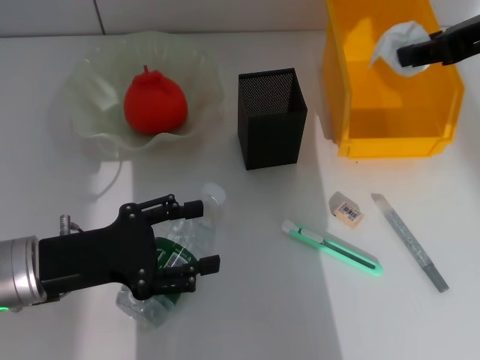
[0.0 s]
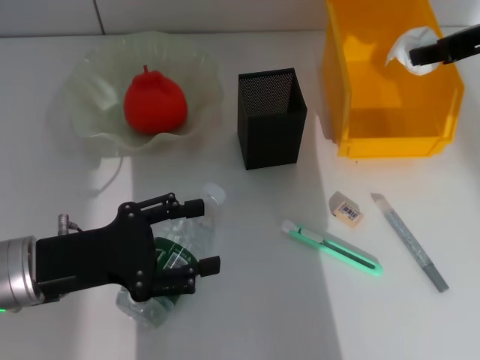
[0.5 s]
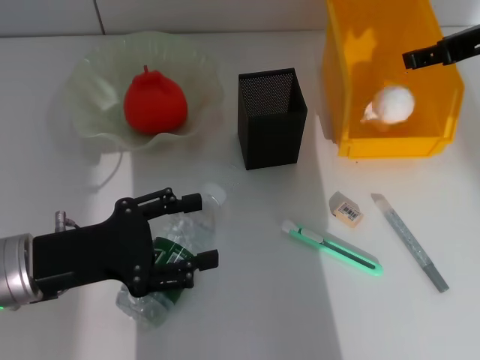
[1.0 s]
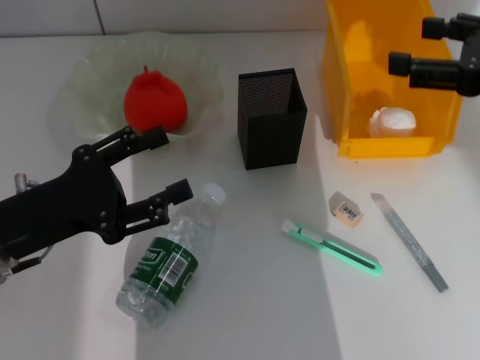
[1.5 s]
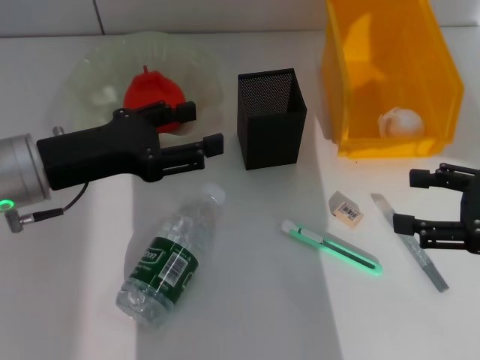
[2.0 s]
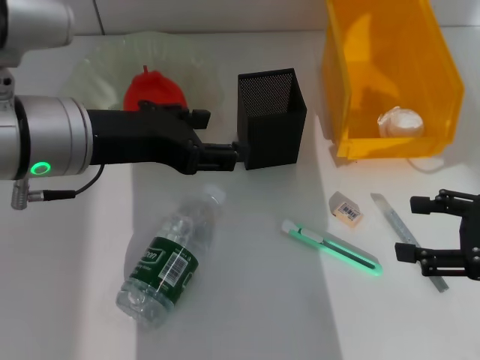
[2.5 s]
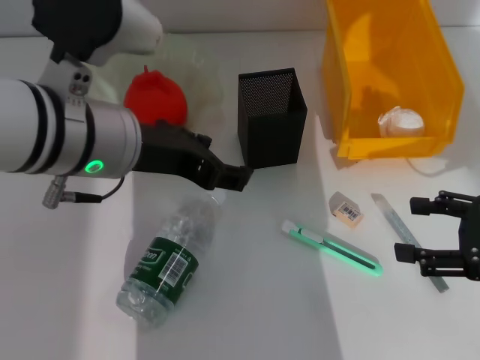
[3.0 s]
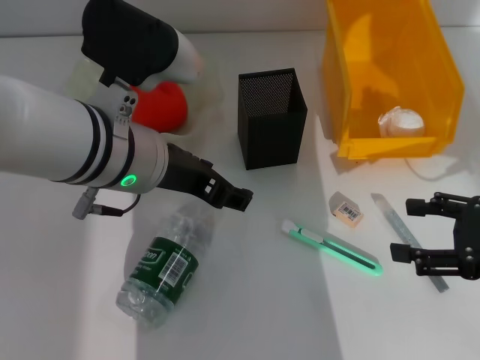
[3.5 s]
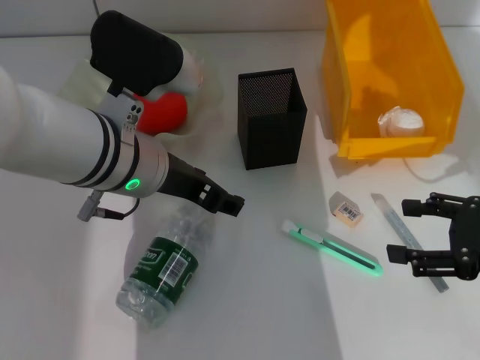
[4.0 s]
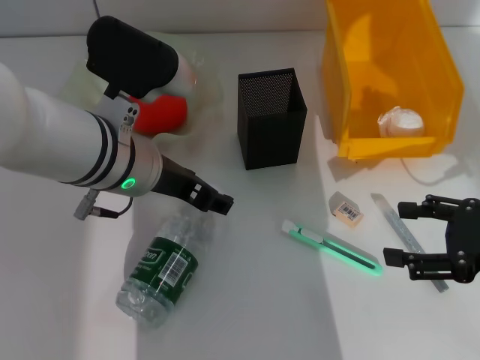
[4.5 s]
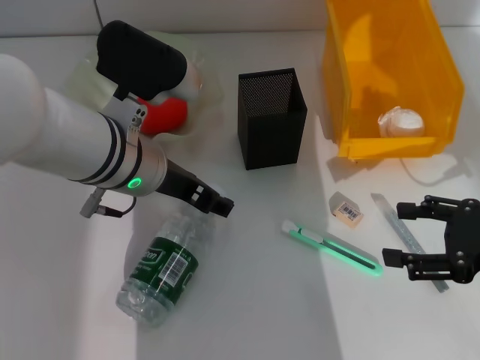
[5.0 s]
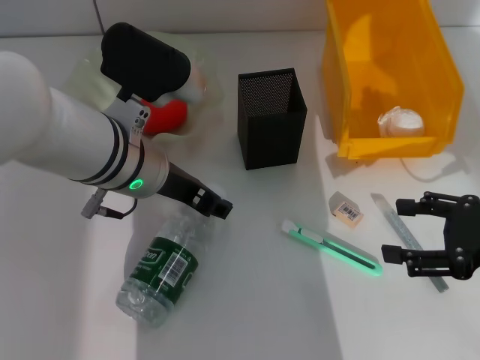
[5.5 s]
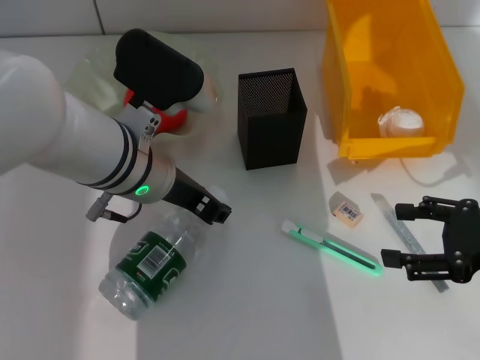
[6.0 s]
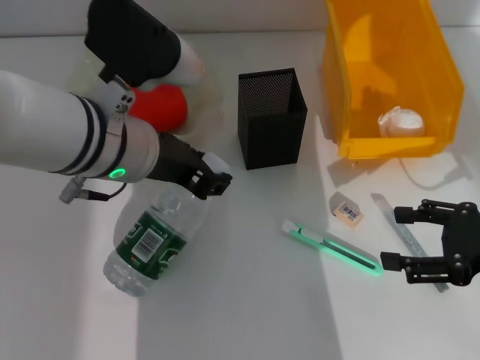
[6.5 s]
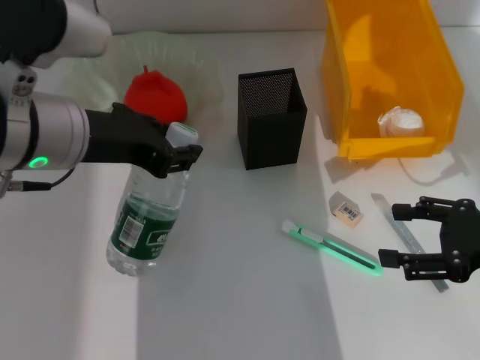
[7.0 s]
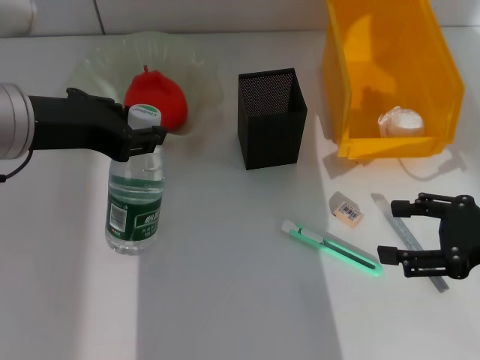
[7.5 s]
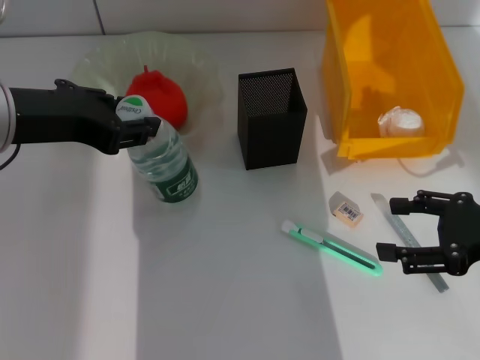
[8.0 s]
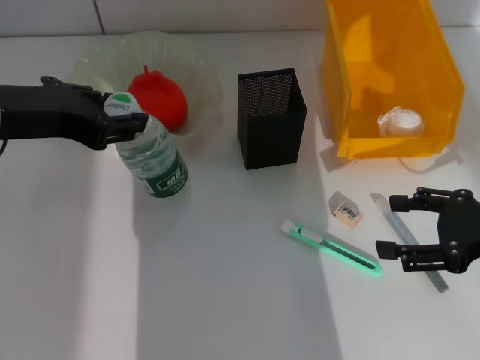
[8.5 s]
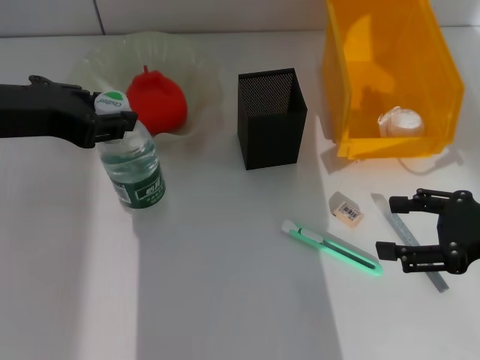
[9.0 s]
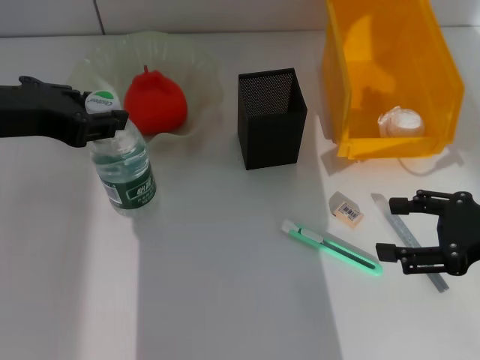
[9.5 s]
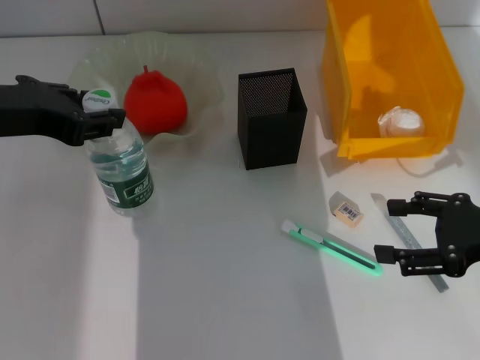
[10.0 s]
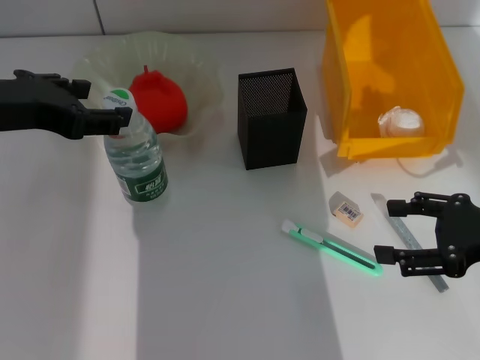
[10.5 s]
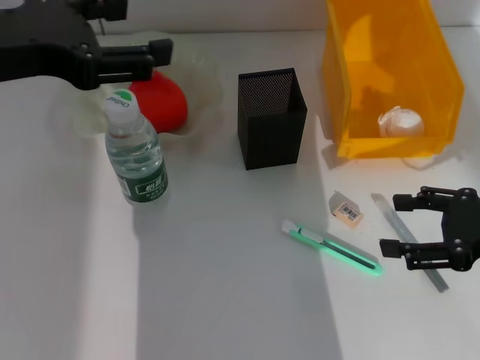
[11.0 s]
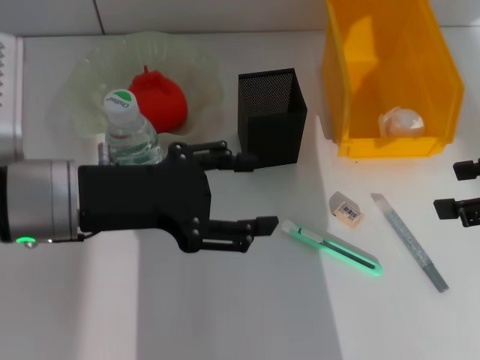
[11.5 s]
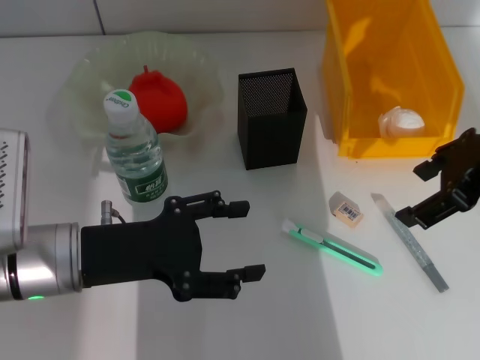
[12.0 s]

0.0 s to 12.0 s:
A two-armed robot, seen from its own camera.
Step, 1.5 to 6.0 s: Grab the water bottle with the left hand.
Step, 6.5 to 10.0 s: Place the water bottle on the table with the left hand.
0.0 to 2.0 s: The left gripper heads upward and forward, covering roughly 10 cm; the right gripper travels downward, backward and to the right by some 20 cm, and opens.
2.0 to 4.0 s: The left gripper moves to the right, some 10 cm.
4.0 to 6.0 s: The left gripper closes up.
6.0 to 8.0 s: The left gripper shifts approximately 15 cm to the left and upward.
8.0 to 10.0 s: The grippers stay close to where they were, moving slightly.
10.0 to 12.0 s: The right gripper shifts roughly 15 cm upward, forward and to the left, while the left gripper is displaced downward by some 15 cm, and opens.

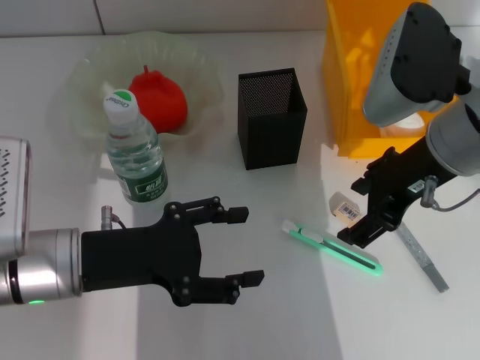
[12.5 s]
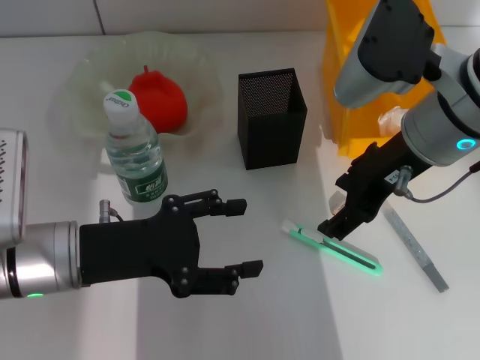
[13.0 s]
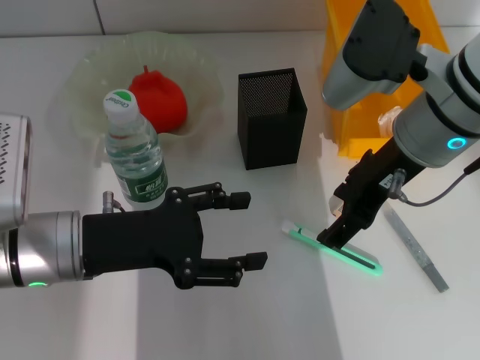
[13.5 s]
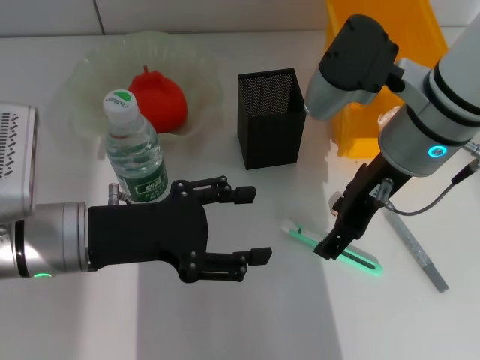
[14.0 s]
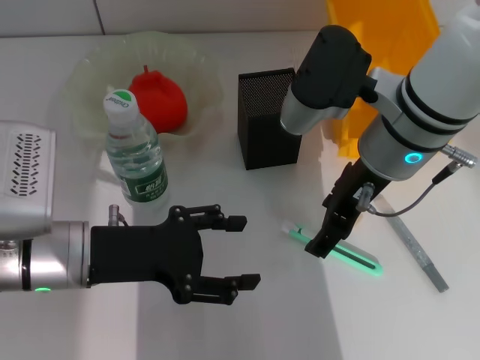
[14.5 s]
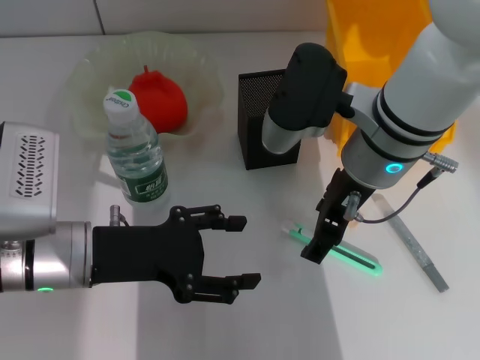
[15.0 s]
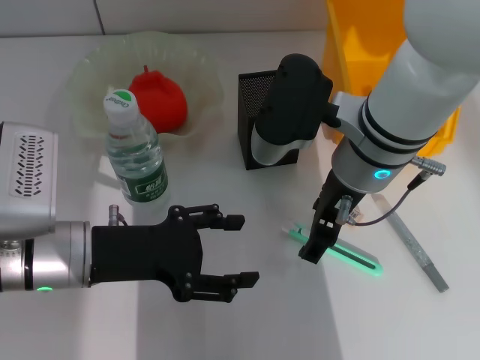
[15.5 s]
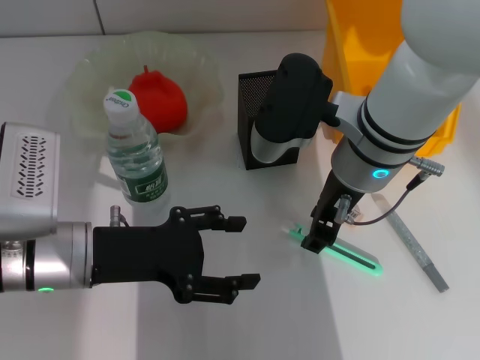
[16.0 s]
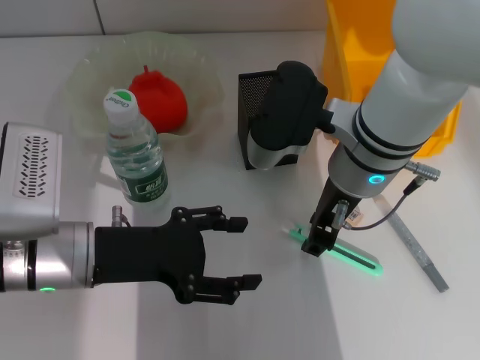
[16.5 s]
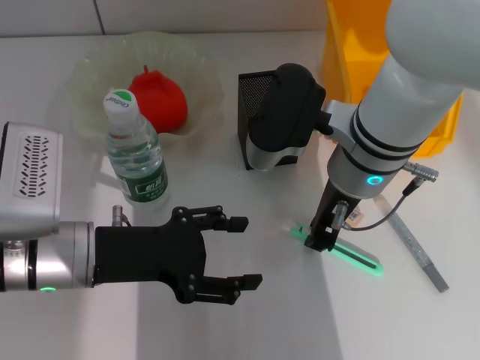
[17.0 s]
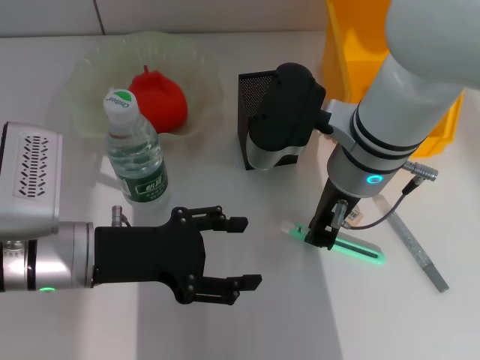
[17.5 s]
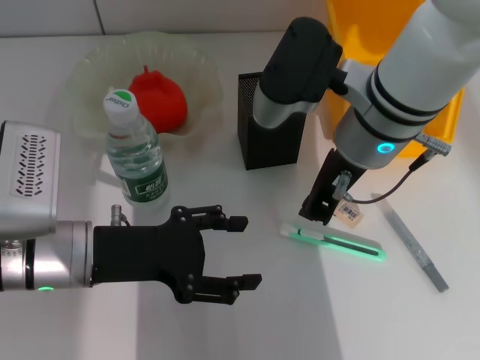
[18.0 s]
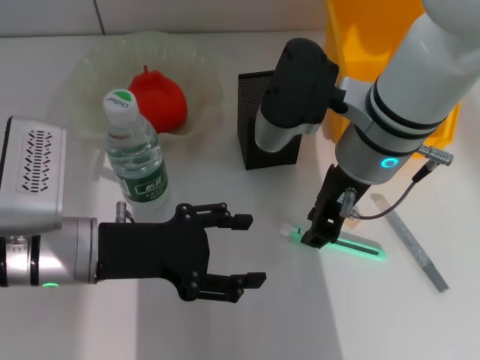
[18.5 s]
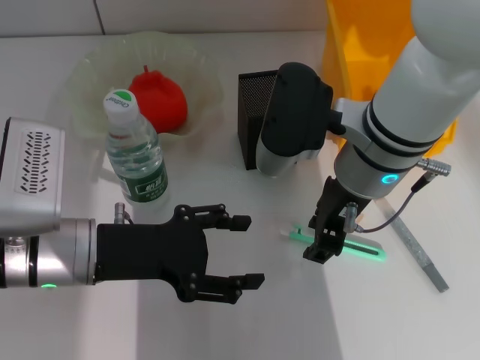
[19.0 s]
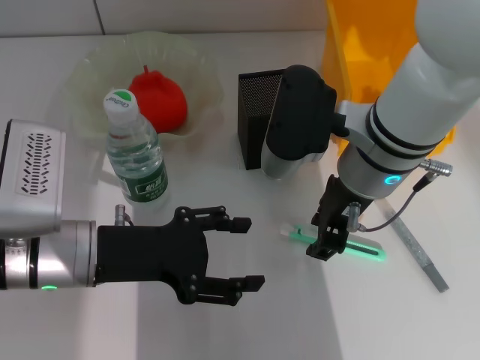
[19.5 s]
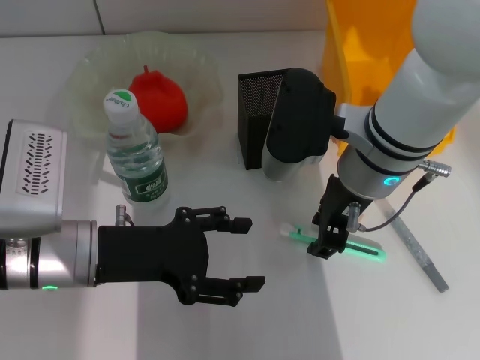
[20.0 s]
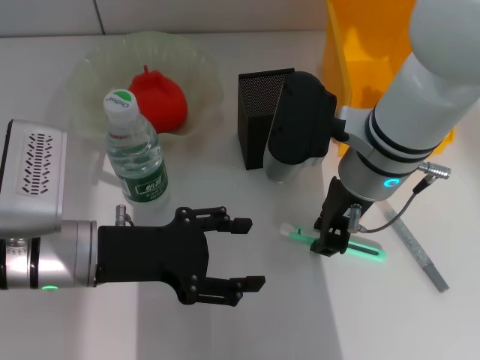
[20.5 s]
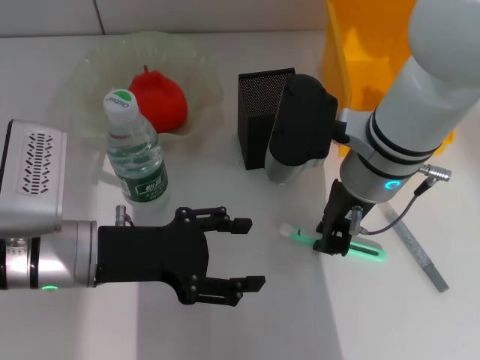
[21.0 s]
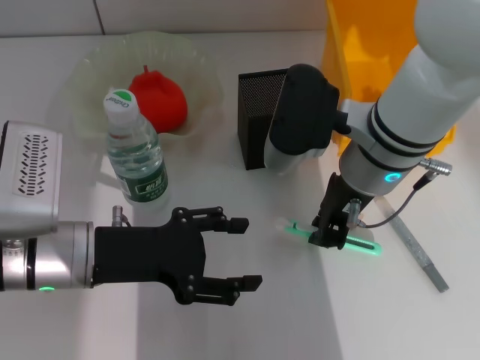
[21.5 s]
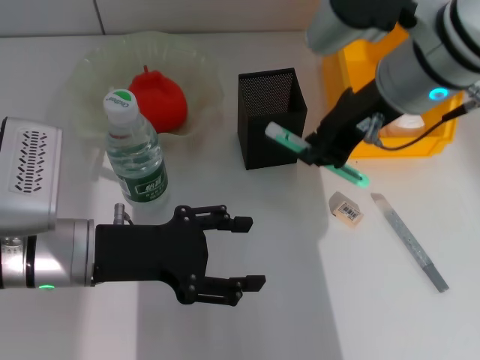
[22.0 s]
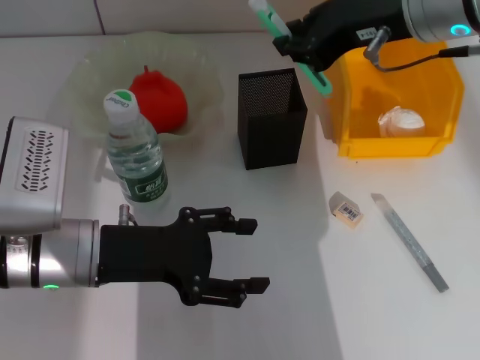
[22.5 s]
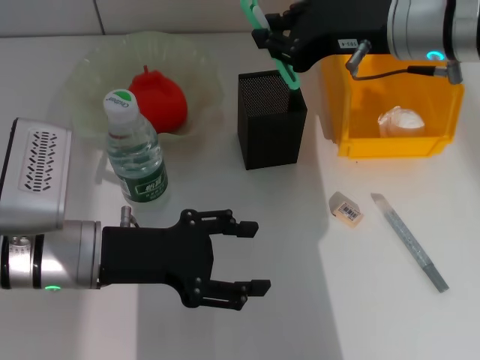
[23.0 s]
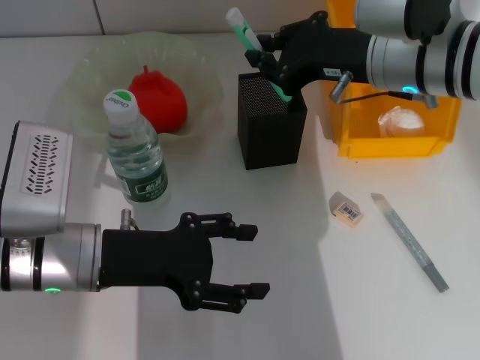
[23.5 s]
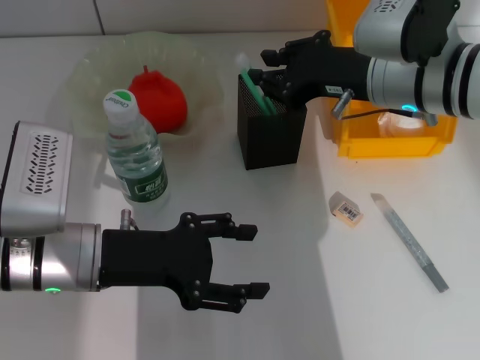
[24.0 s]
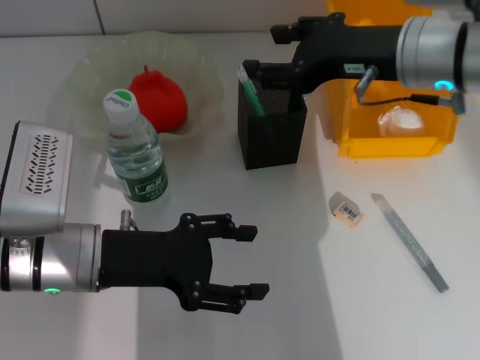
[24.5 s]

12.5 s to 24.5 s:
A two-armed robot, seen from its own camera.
Step, 12.5 to 21.0 s: Grab the blue utility knife with the right hand.
Step, 21.5 to 24.0 s: Place the blue utility knife into the pen holder with the right hand.
12.5 to 14.5 s: The right gripper goes about 5 cm to the left.
14.5 to 16.5 s: The right gripper closes up.
16.5 to 20.5 s: The grippers move only a little.
20.5 to 22.5 s: The right gripper shifts roughly 10 cm upward.
22.5 to 24.5 s: The right gripper opens its fingers.

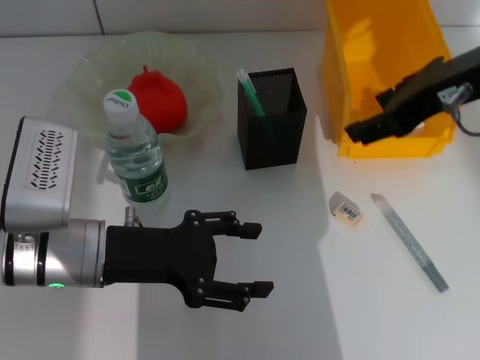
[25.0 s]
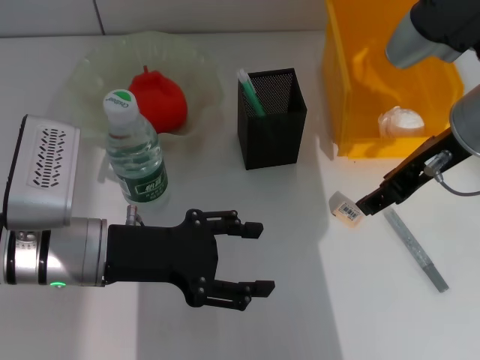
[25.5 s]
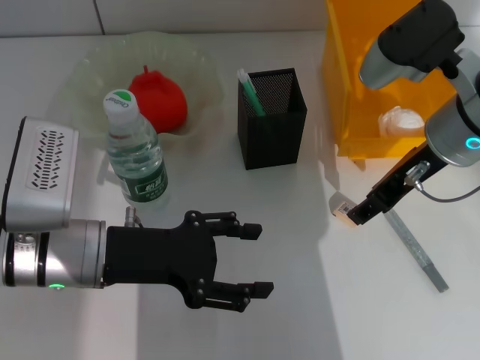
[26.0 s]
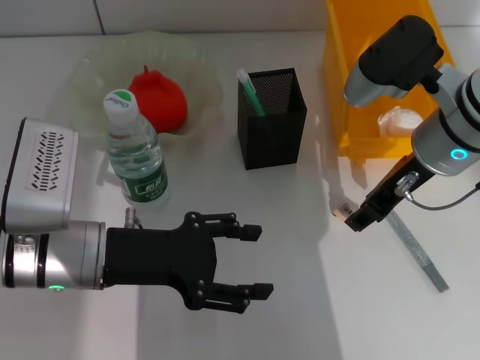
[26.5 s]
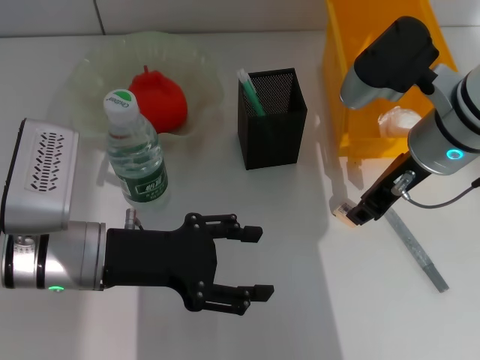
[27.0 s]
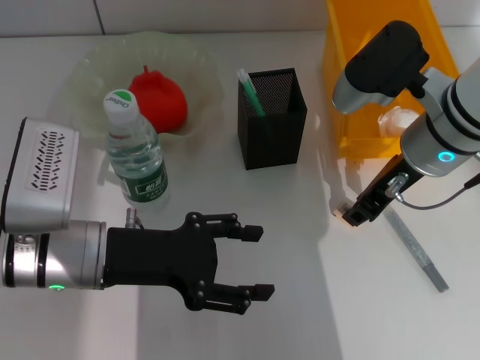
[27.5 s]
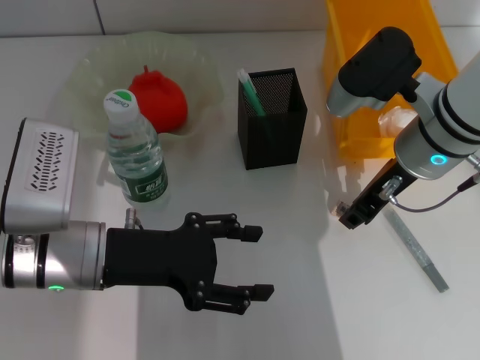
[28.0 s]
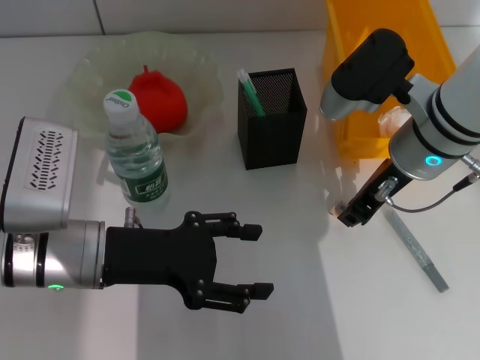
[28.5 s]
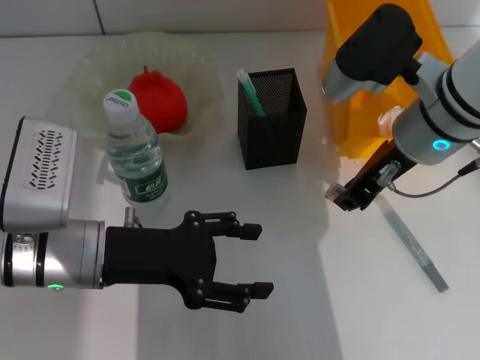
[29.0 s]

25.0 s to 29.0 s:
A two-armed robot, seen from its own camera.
Step, 25.0 to 28.5 s: Grab the eraser with the right hand.
25.0 to 27.0 s: The right gripper travels downward by about 10 cm, and closes up.
27.0 to 29.0 s: The grippers move only a little.
